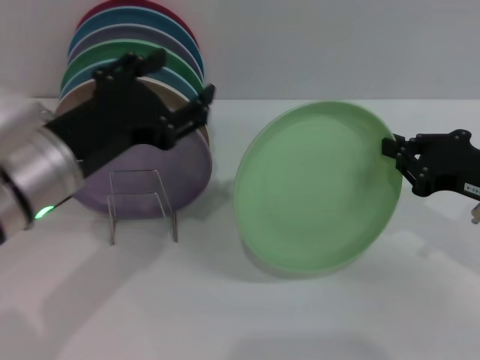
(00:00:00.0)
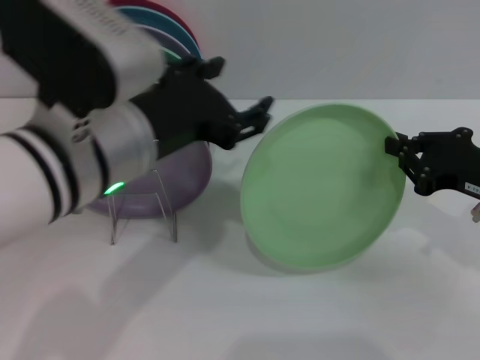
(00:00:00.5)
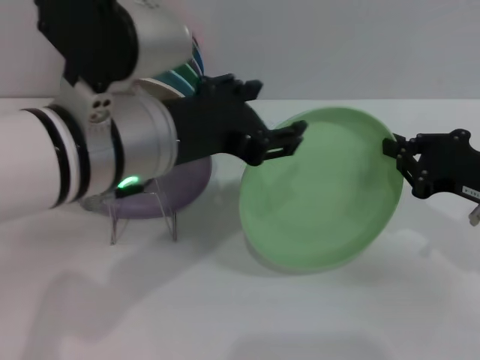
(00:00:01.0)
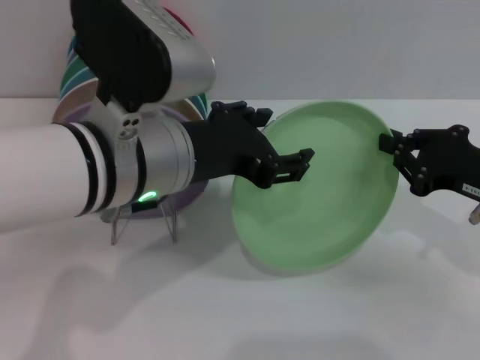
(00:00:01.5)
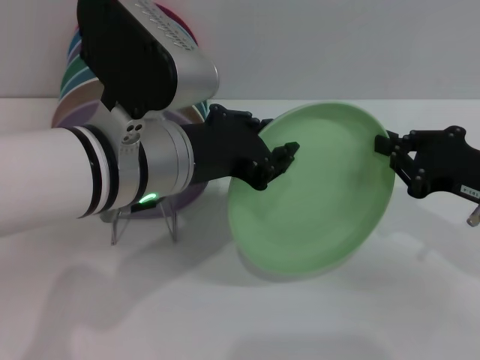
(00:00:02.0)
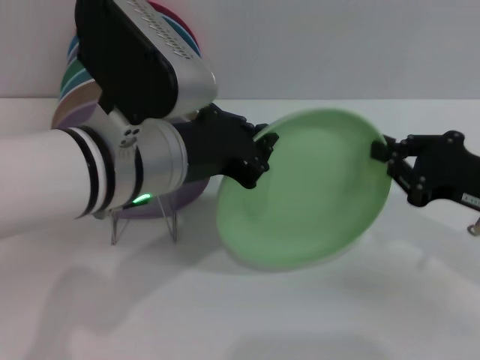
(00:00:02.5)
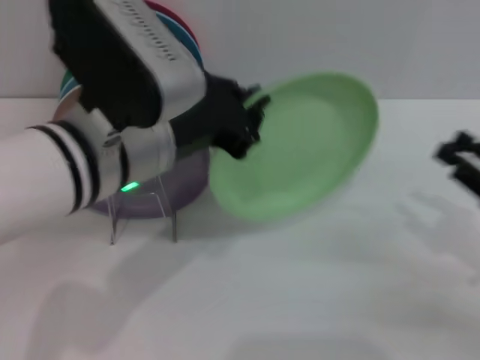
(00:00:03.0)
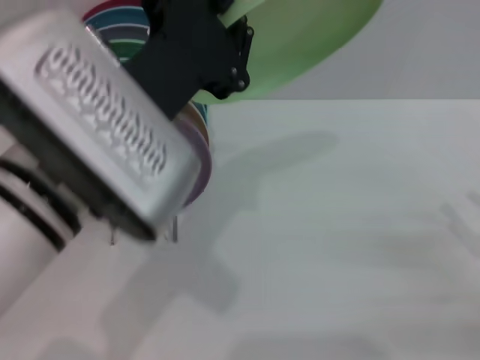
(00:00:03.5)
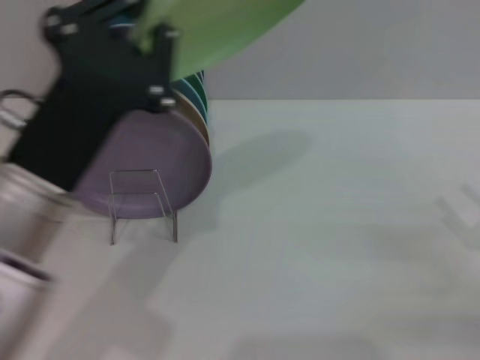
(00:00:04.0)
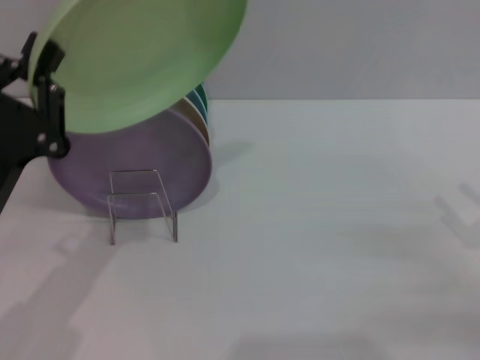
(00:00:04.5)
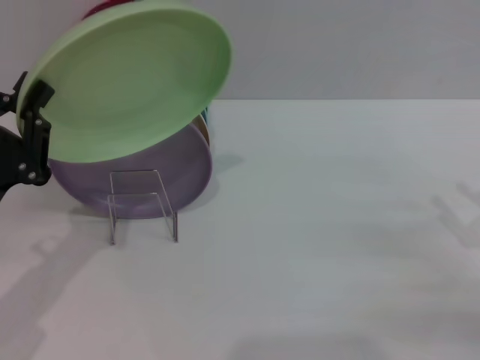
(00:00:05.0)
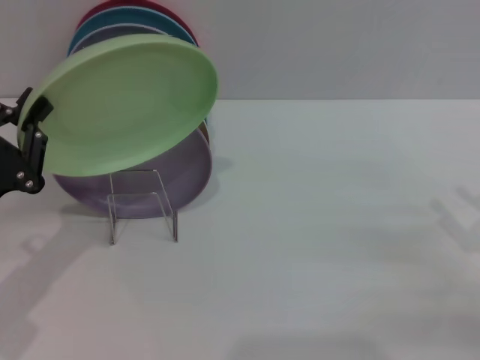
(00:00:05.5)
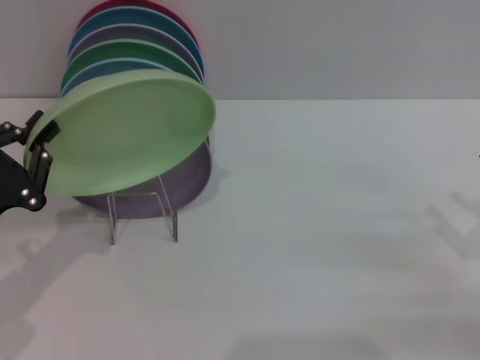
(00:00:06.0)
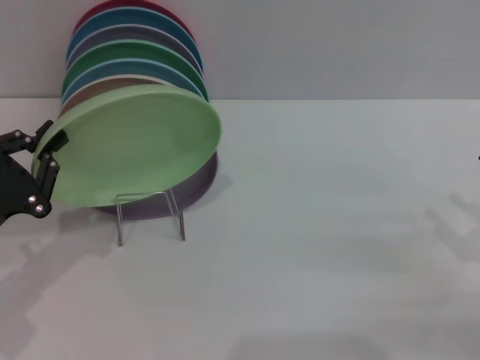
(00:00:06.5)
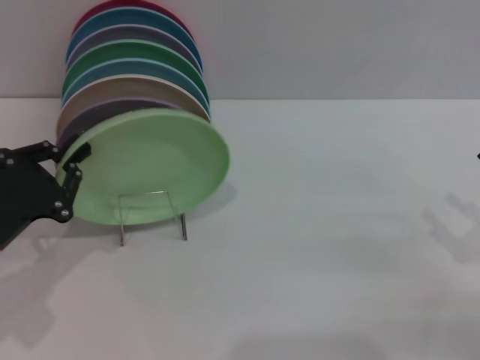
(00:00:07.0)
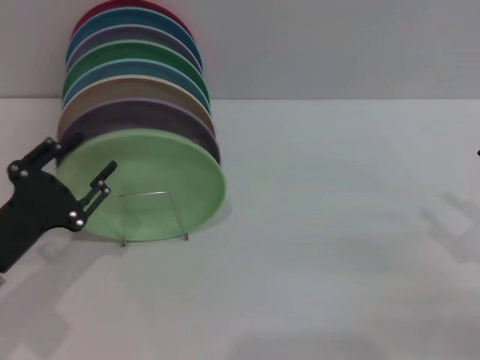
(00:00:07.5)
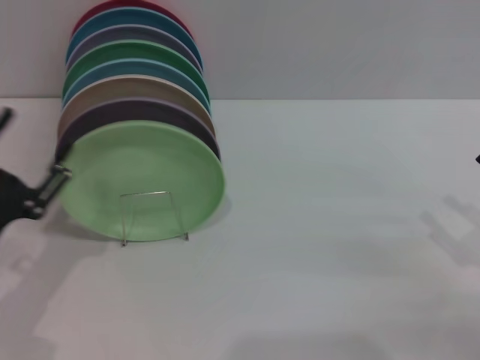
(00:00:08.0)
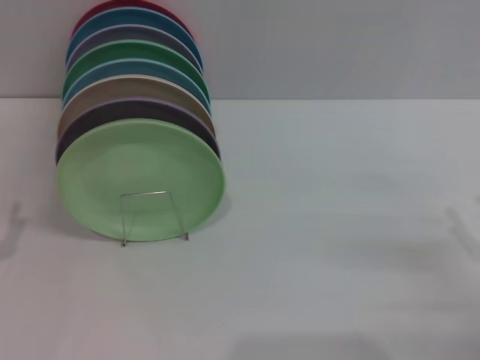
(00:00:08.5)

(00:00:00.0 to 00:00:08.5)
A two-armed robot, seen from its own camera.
Task of the whole recording: Grip the plate with one hand, pass it to the other, then set it on the shelf.
Step, 00:00:00.0 - 00:00:02.5: Pass the plate from the right gripper to the left gripper.
Step, 00:00:03.0 - 00:00:08.0: Place the plate on the shelf with the left gripper.
00:00:00.0 - 00:00:02.0: The left gripper shifts some 5 cm to the right.
00:00:02.0 - 00:00:04.0: The left gripper shifts roughly 10 cm to the left and backward, and closes its fingers. The right gripper heads to the right and backward, covering some 10 cm, and opens up.
00:00:04.0 - 00:00:06.5: The left gripper shifts some 15 cm to the left and downward.
00:00:06.5 - 00:00:08.5: The left gripper moves backward, some 5 cm, and opens its fingers.
